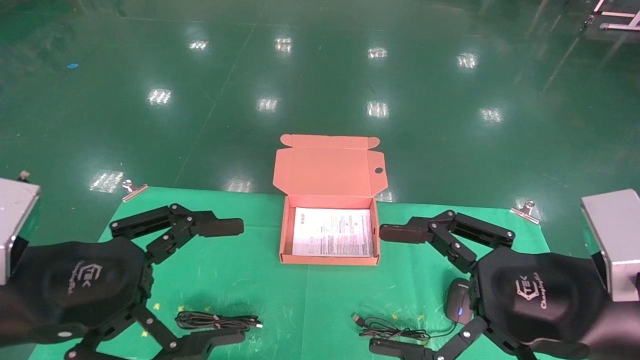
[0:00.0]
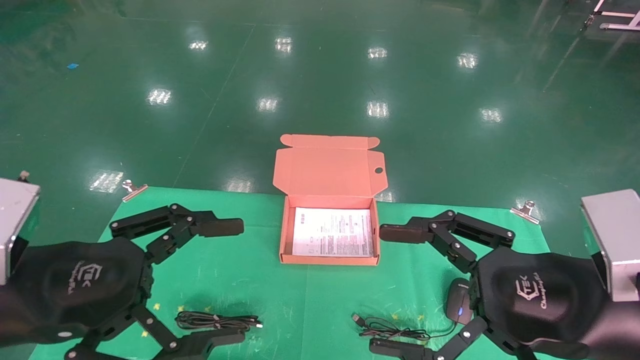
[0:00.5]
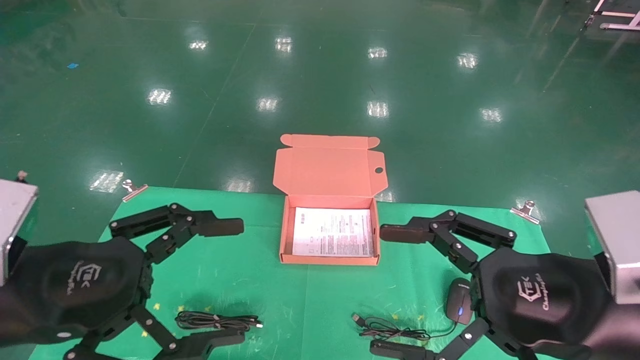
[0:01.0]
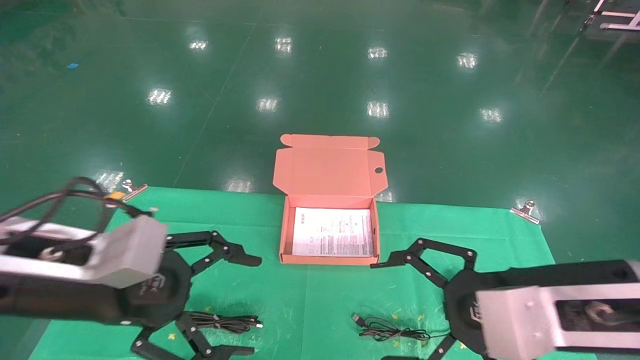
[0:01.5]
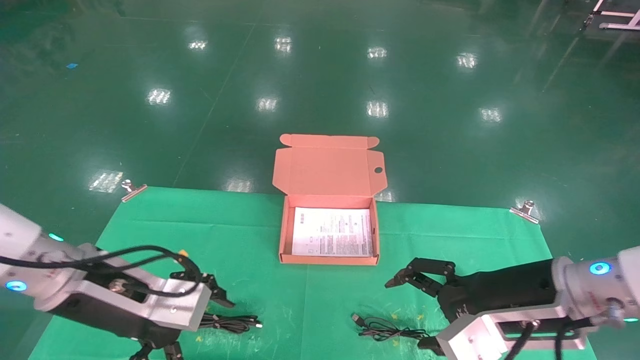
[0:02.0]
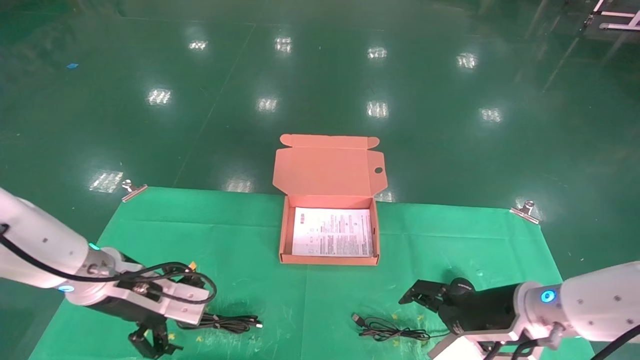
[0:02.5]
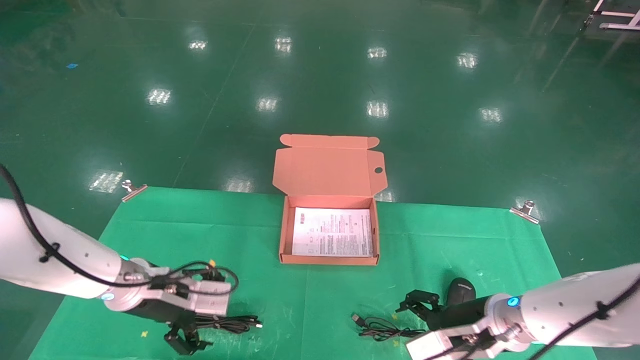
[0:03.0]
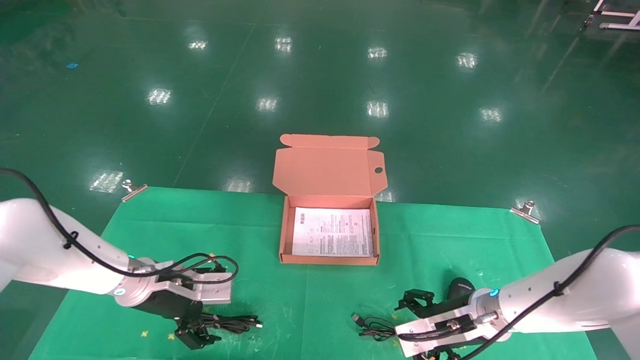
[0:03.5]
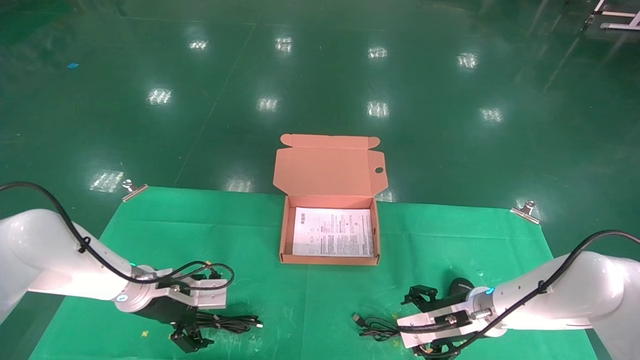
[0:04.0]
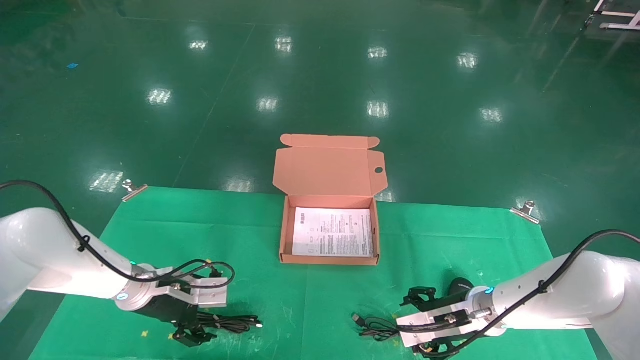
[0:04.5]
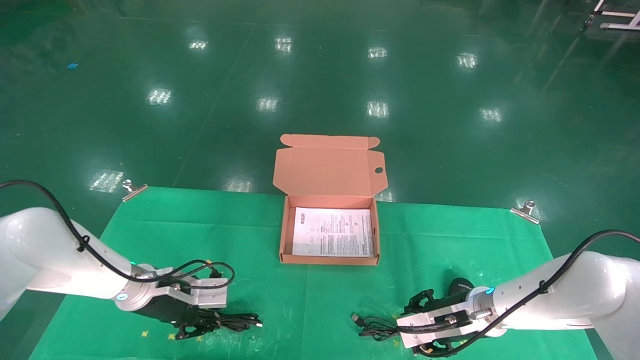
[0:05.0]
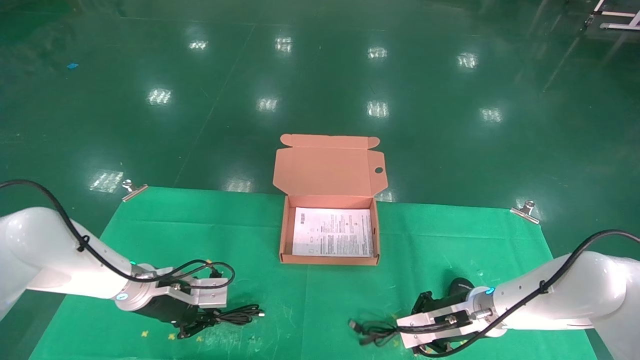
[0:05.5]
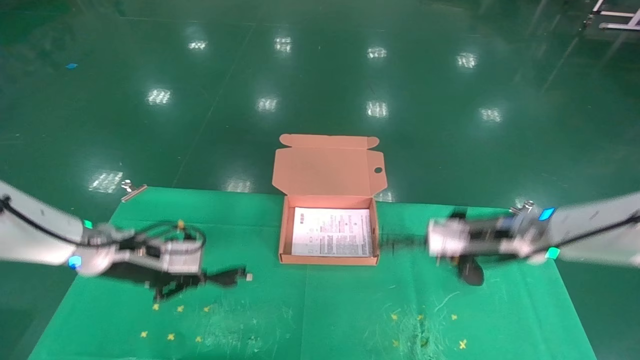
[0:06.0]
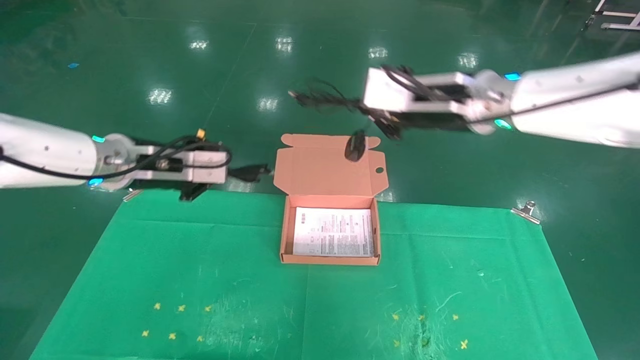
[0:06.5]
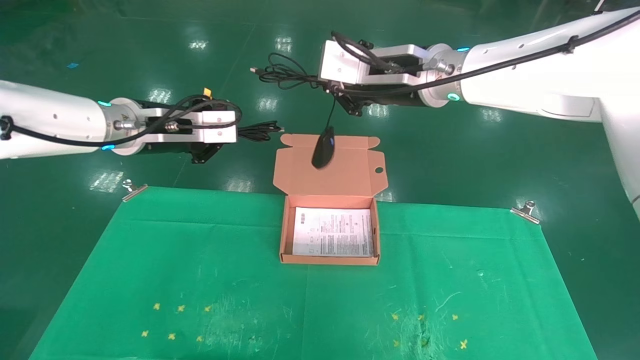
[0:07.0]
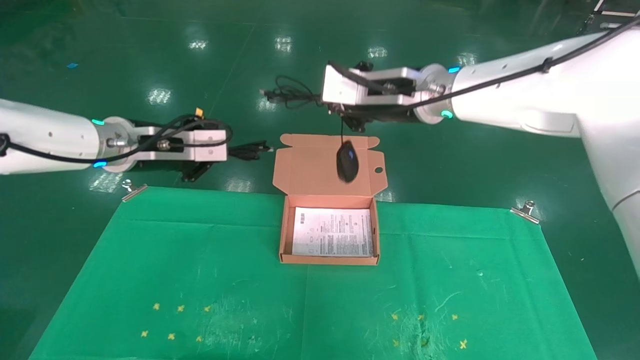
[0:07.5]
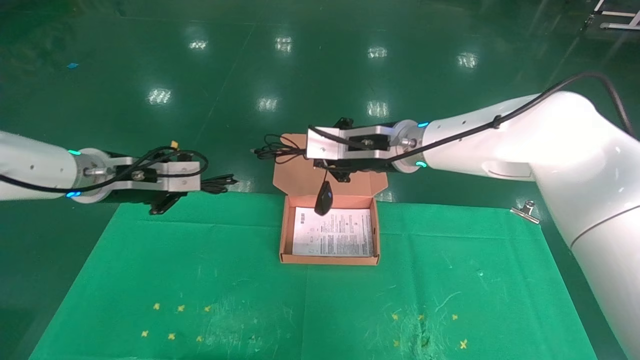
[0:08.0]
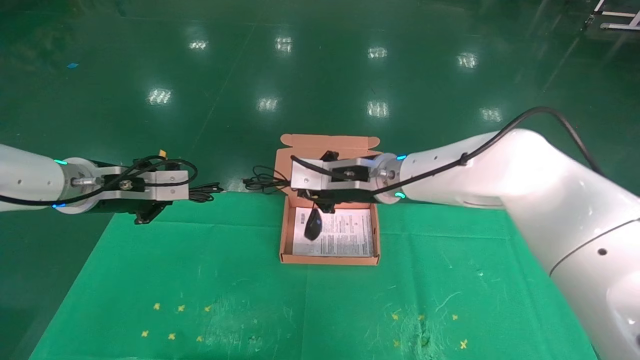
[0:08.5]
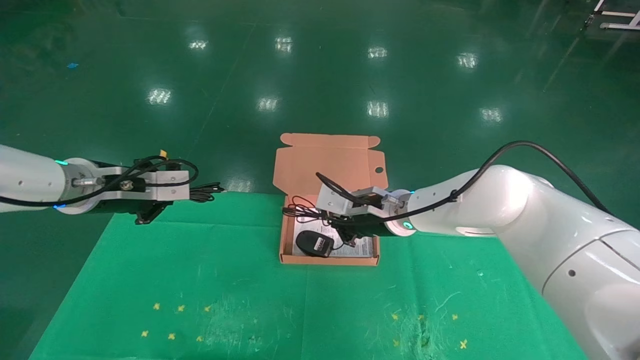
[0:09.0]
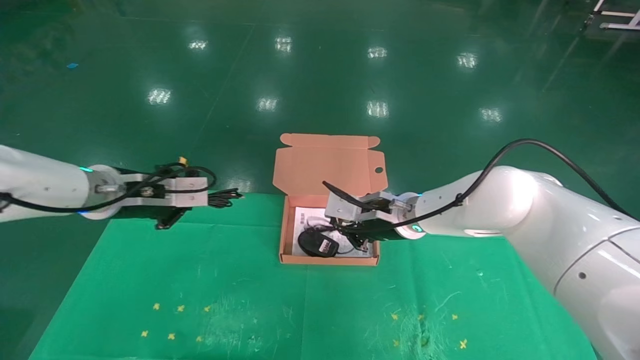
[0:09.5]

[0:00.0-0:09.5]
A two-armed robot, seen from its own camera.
Task of the whole recording: grasp data cable left put into box grasp mouse right put into box.
Step, 0:01.0 to 0:05.5: Grab and pick up both the mouse and power cord from the accessory packaging area at the same time.
0:00.0 to 0:02.0: The right gripper travels forward and downward by about 10 cm; the left gripper moves forward, about 10 cm.
0:02.0 to 0:04.0: The left gripper travels forward and downward by some 20 cm; the right gripper moves downward and forward, some 20 cm.
0:04.0 to 0:05.5: The left gripper closes up, while the right gripper closes up.
0:05.5 to 0:07.5: The left gripper moves upward, some 20 cm. Meanwhile the right gripper travels upward and to the left by approximately 35 cm.
0:07.5 to 0:09.5: The left gripper is displaced downward by roughly 5 cm, while the right gripper heads downward, covering approximately 15 cm.

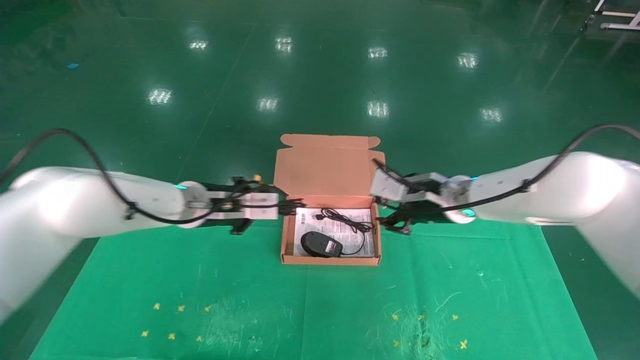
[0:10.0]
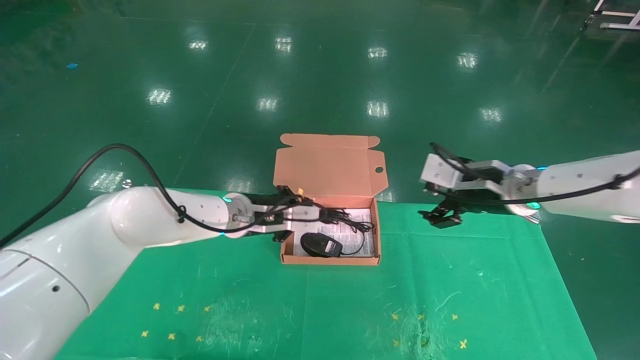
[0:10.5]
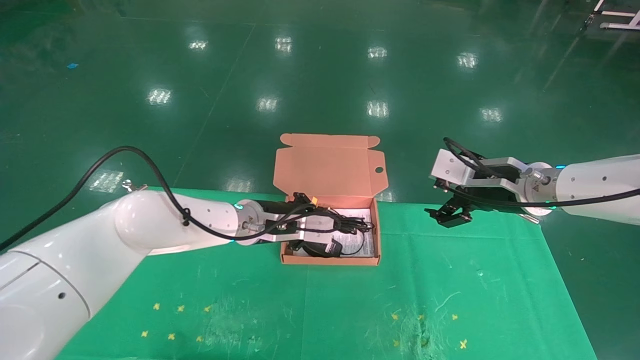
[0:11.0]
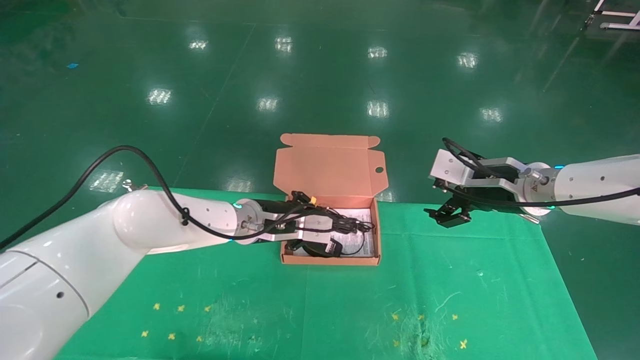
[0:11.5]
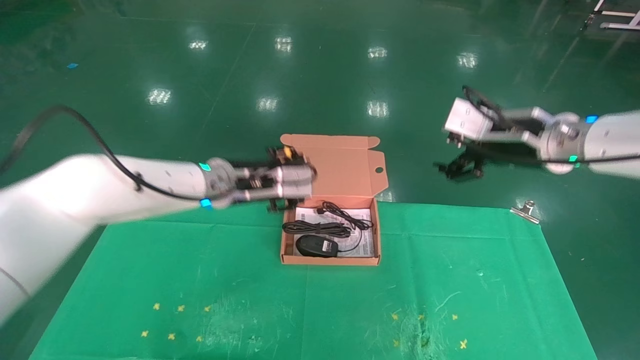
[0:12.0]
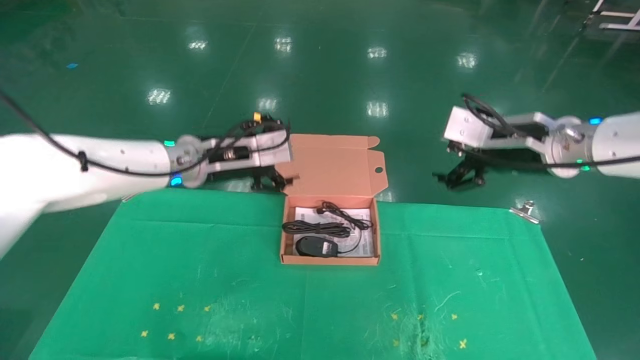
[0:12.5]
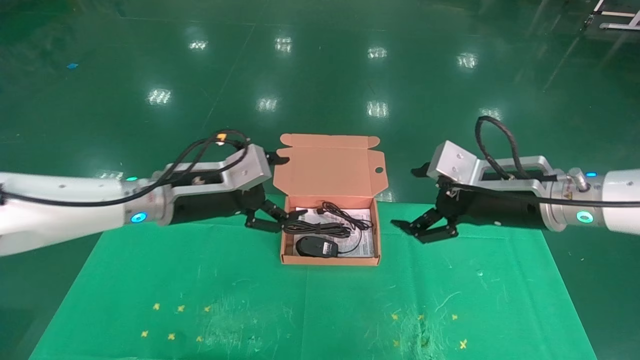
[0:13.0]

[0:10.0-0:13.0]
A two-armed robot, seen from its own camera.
Task of the whole recording: grasp data cable left put into box grasp mouse right put into box.
0:10.0 to 0:11.5: The grippers both shift to the right by approximately 10 cm. The right gripper opens.
0:11.5 to 0:13.0: The left gripper moves to the left, backward and upward, approximately 15 cm, and opens. The right gripper is displaced backward by approximately 5 cm.

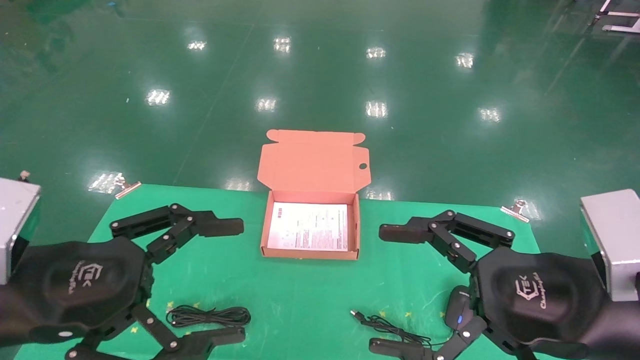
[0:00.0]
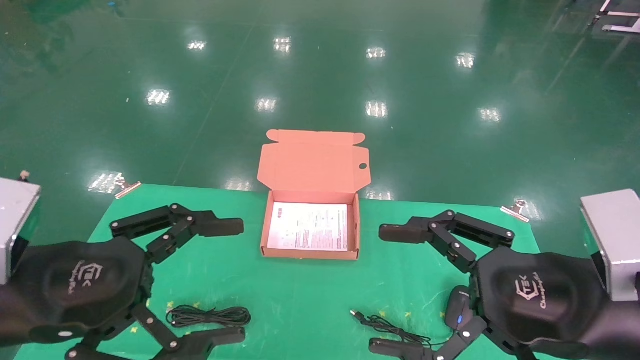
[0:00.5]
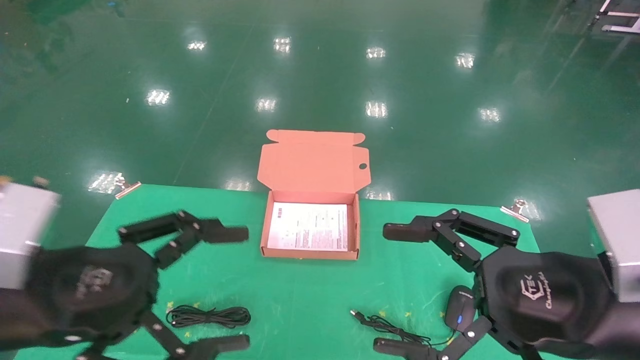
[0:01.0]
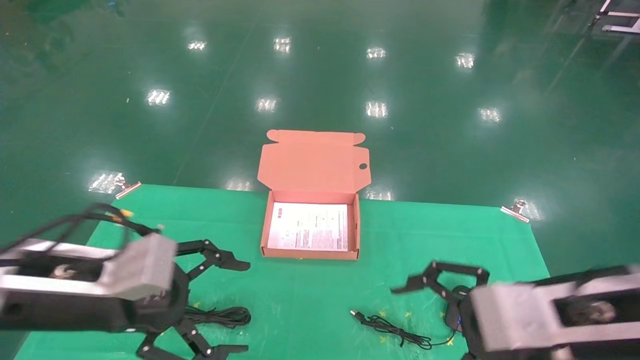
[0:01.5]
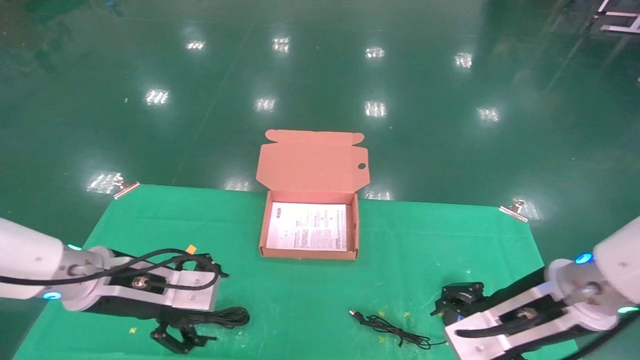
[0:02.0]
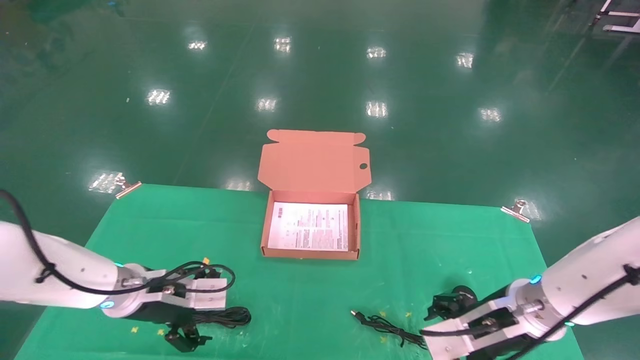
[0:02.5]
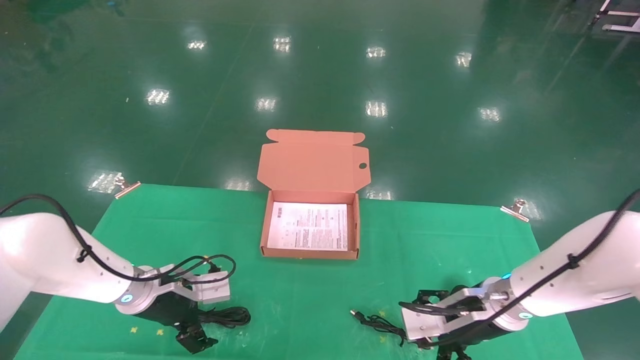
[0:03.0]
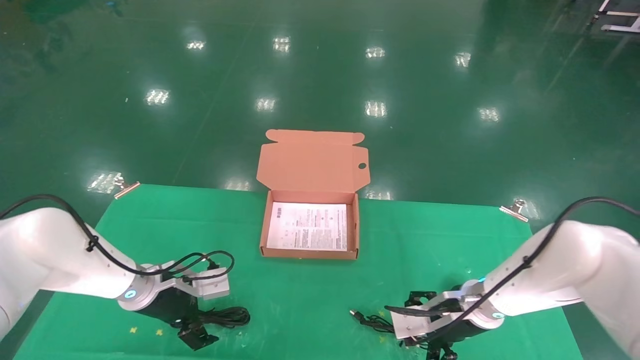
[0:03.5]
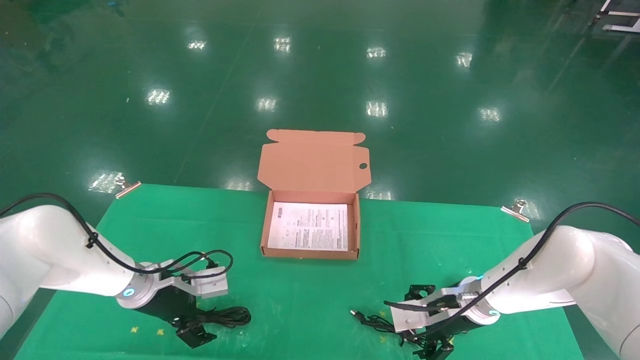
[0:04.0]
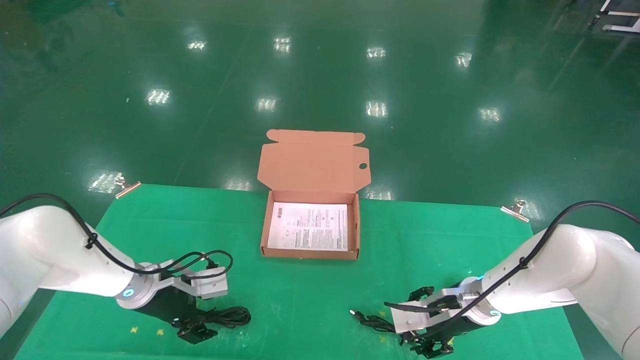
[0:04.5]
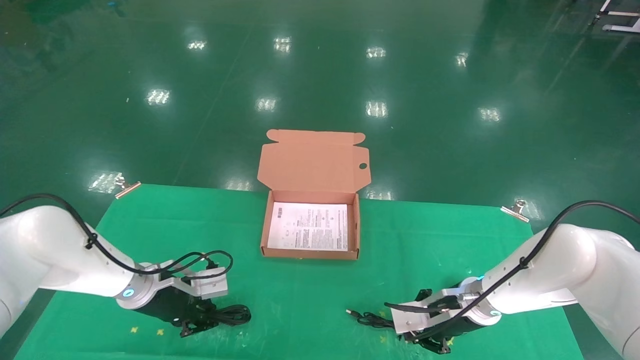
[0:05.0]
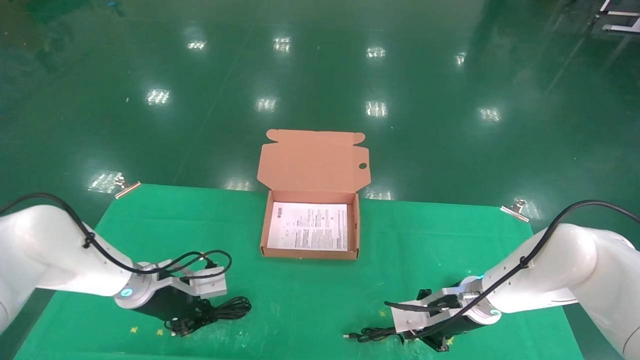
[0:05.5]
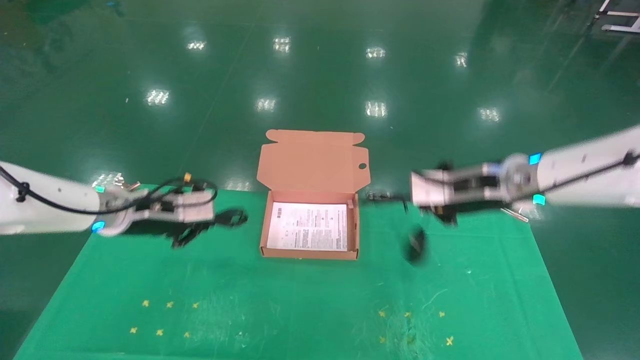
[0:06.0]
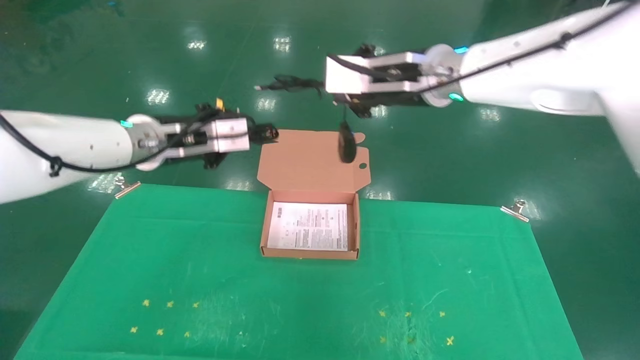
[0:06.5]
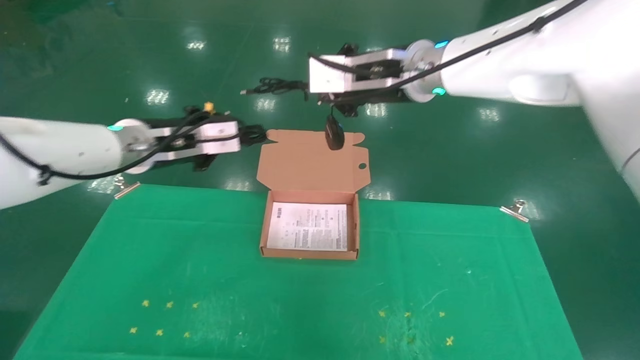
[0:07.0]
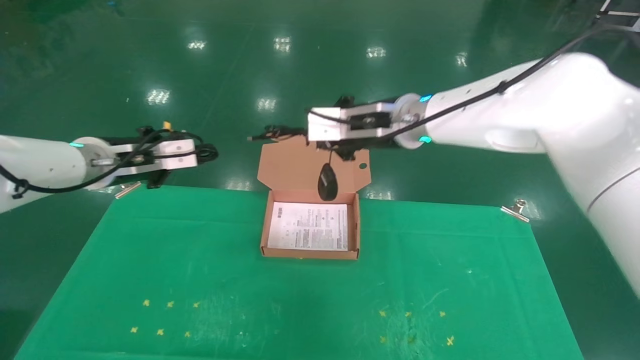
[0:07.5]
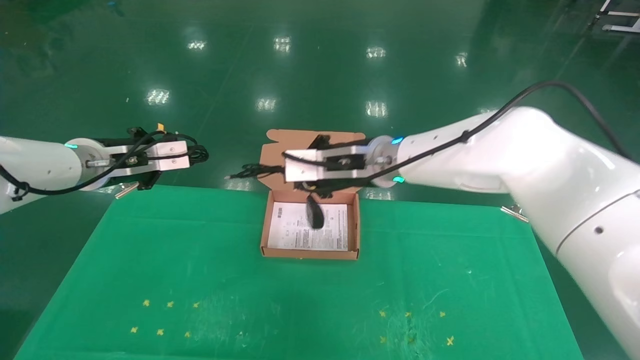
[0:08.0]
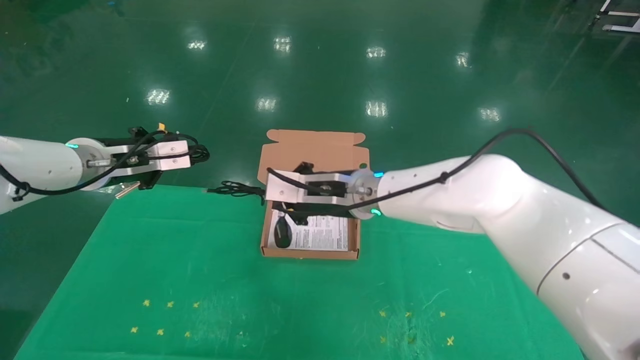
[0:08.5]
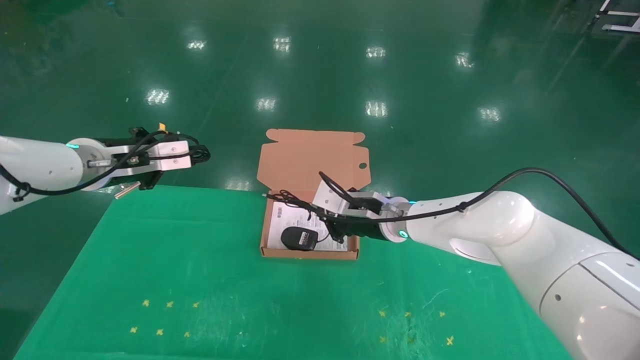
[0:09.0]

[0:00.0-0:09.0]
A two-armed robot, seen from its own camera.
Task of the whole recording: grasp data cable left put into box grasp mouse right put into box.
Step, 0:01.5 to 0:06.0: Grab and pick up both the mouse and power cord from the accessory packaging area at the same time.
0:00.0 to 0:02.0: Both grippers travel together forward and downward, roughly 10 cm.
0:02.0 to 0:04.5: The grippers both shift forward and downward by approximately 15 cm.
0:04.5 to 0:07.0: The grippers both shift upward by roughly 30 cm. The right gripper closes its fingers. Meanwhile the left gripper closes up.
0:07.0 to 0:09.0: The right gripper heads downward, covering roughly 20 cm; the left gripper moves to the left, roughly 5 cm.
